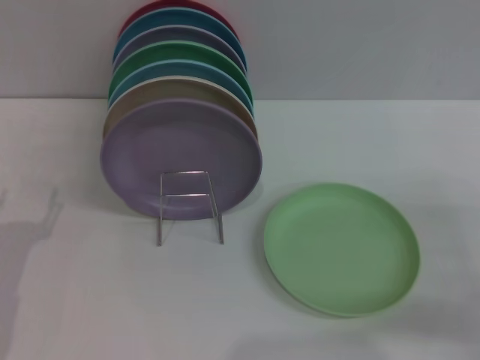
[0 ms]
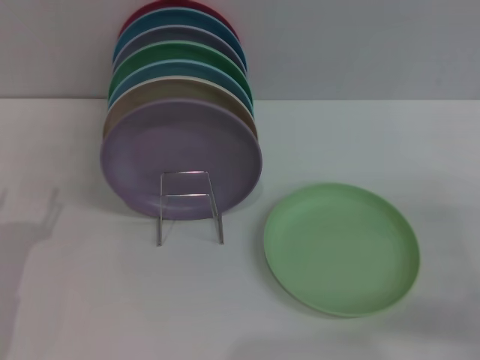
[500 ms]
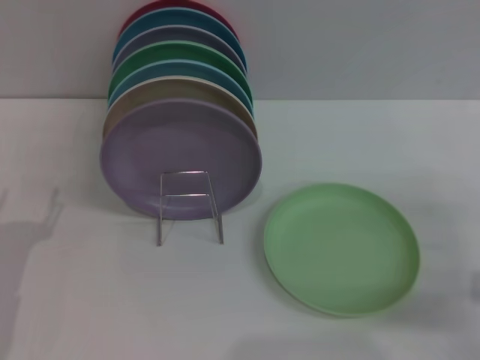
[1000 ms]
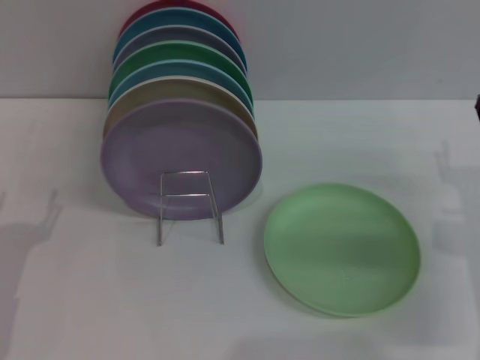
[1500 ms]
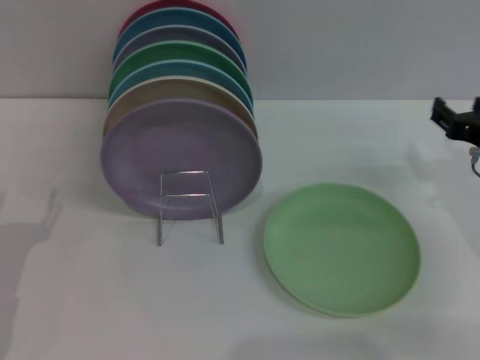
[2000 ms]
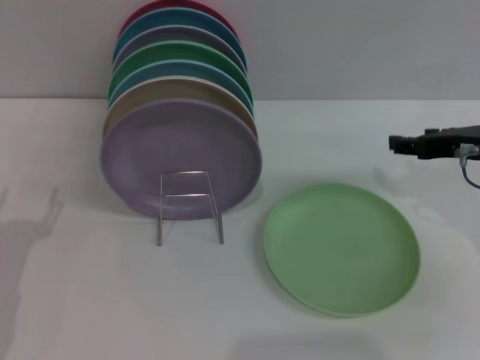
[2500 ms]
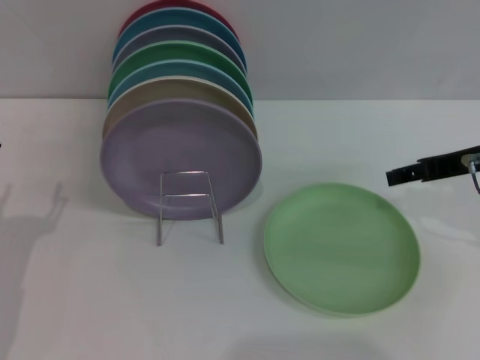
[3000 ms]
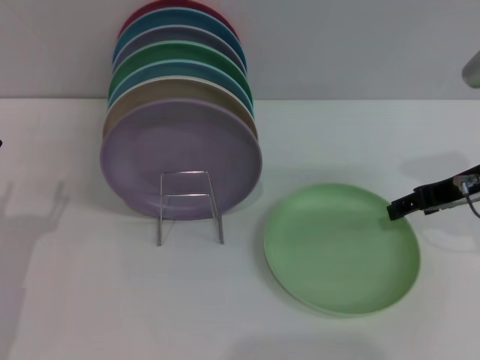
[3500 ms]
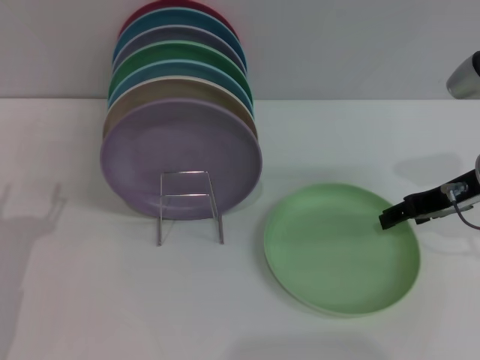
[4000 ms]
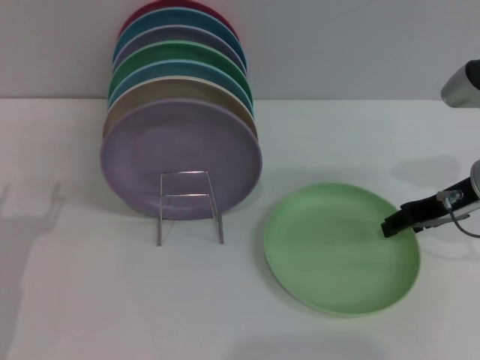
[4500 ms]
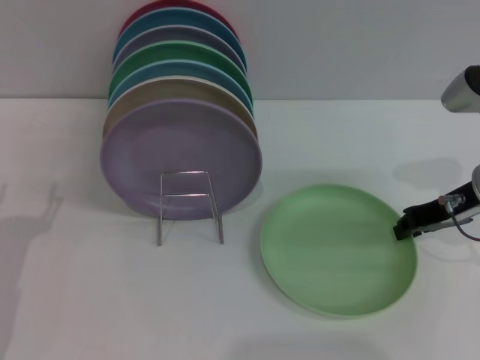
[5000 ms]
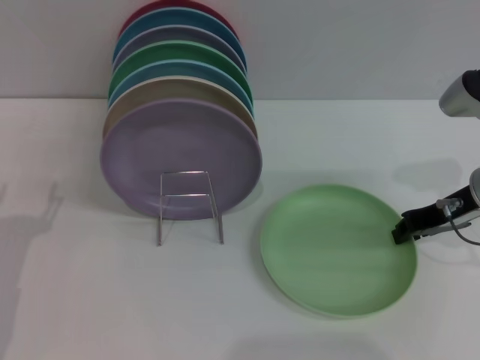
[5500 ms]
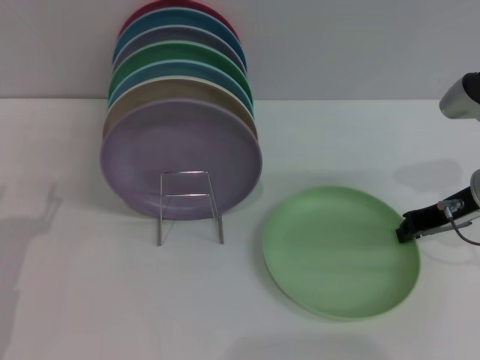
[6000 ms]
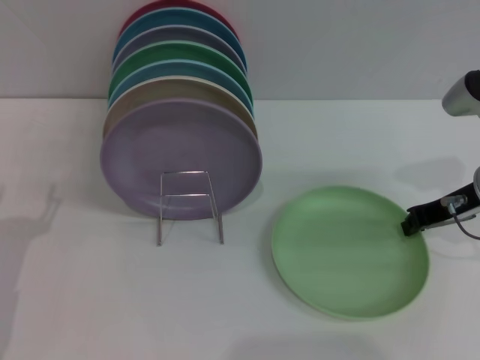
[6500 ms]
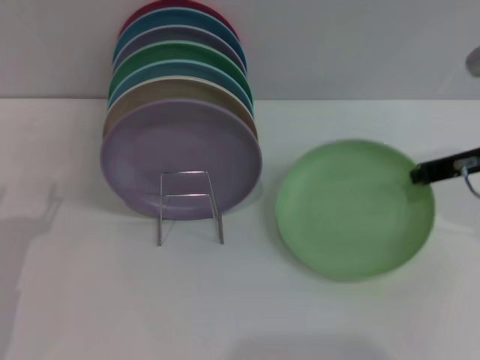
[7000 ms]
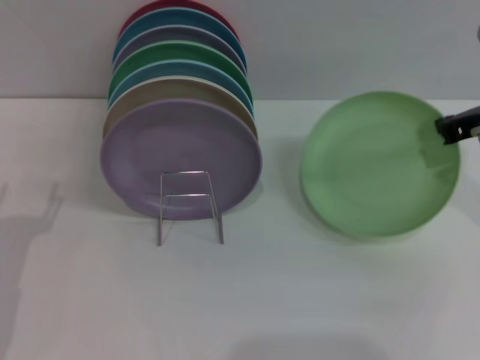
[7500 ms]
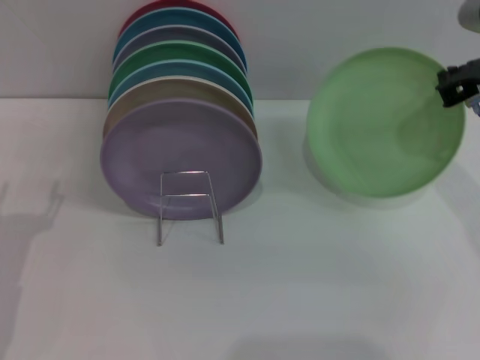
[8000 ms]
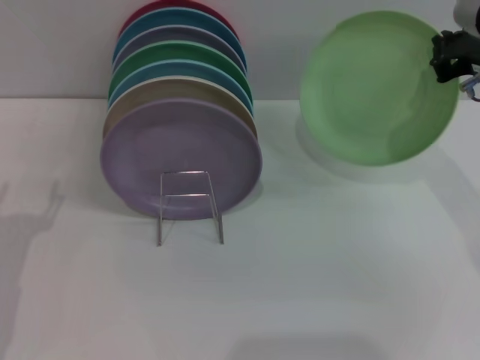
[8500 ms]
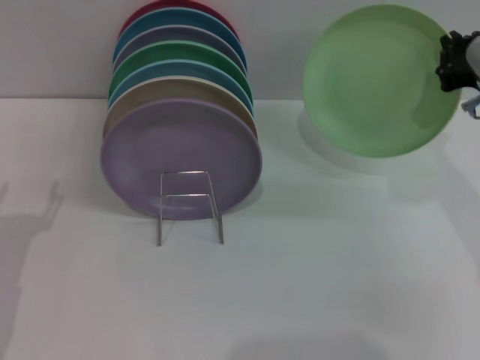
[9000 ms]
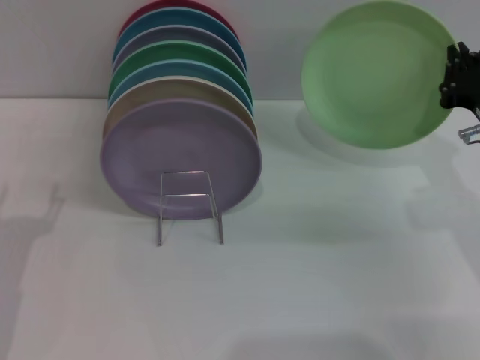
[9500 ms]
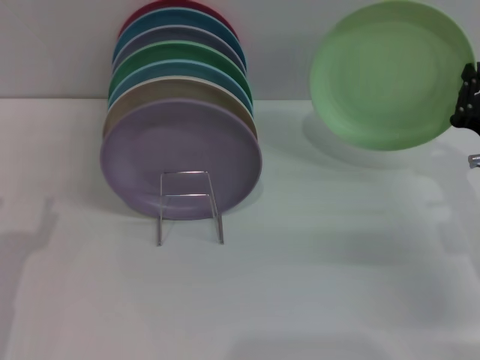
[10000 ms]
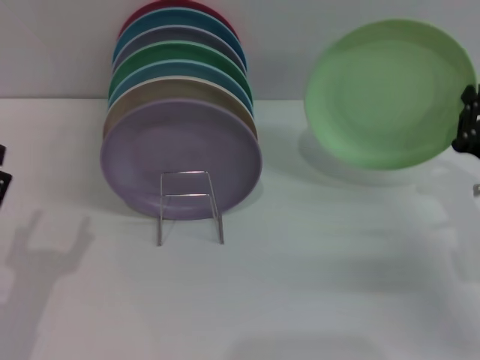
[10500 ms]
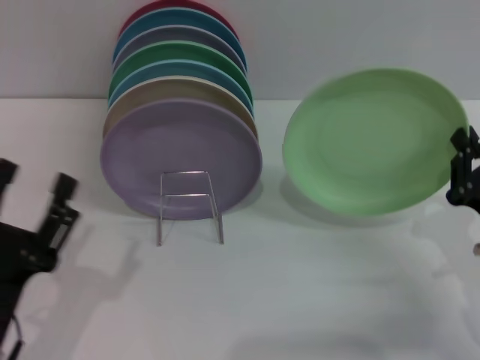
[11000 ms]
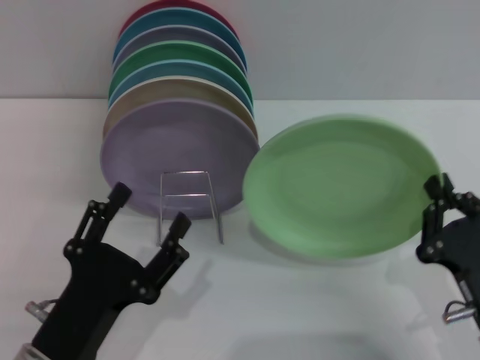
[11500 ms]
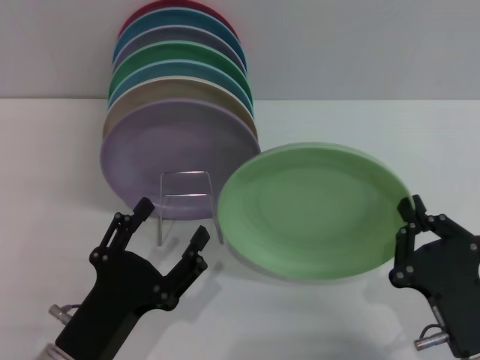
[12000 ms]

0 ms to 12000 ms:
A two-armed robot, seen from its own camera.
Task of the whole recording: Grip the plate with one hand, pass it to the other, then set it on the shelf.
Step, 0 ms to 9500 ms: Pick up the plate with the right gripper.
0 ms to 2000 ms: The right gripper goes approximately 10 cm forward and upward.
4000 ms to 6000 ms: The right gripper closes up.
6000 ms to 8000 ms: The right gripper heads upward, covering approximately 10 cm.
8000 ms to 10000 ms: The right gripper heads downward, covering roughly 15 cm.
10000 ms to 12000 ms: The right gripper heads backward and to the left, covering approximately 20 cm; the left gripper heads to the right, covering about 10 cm.

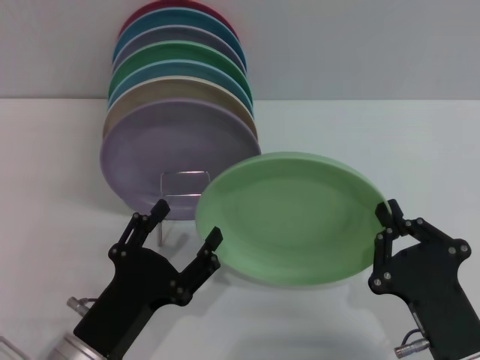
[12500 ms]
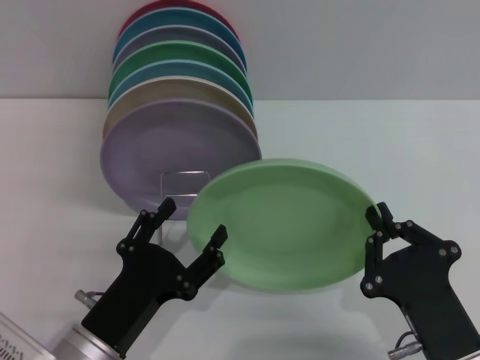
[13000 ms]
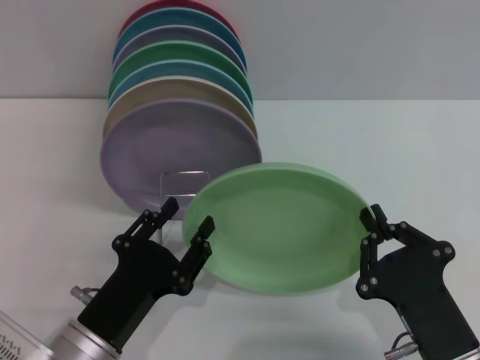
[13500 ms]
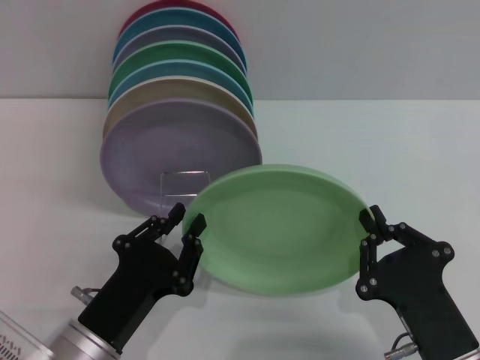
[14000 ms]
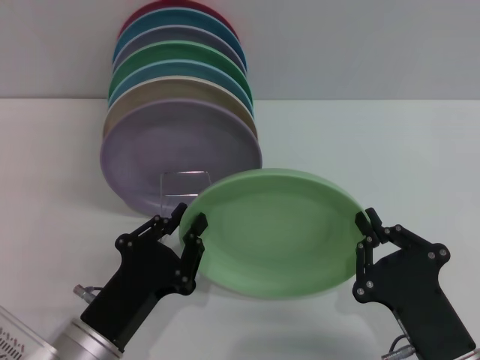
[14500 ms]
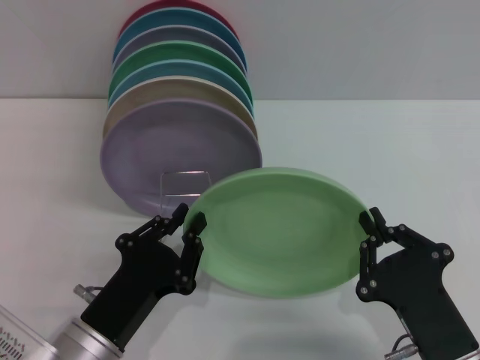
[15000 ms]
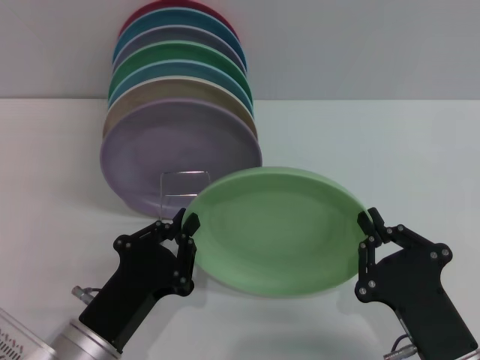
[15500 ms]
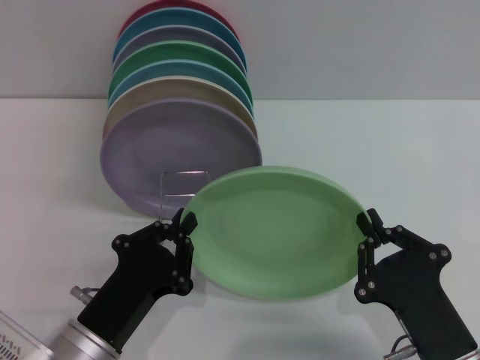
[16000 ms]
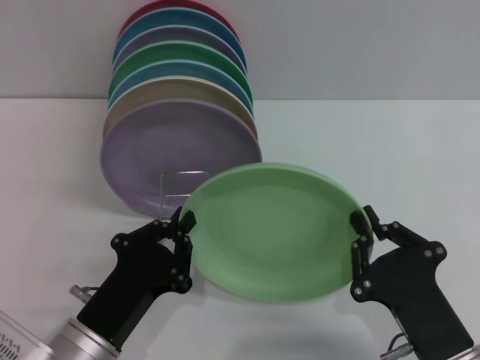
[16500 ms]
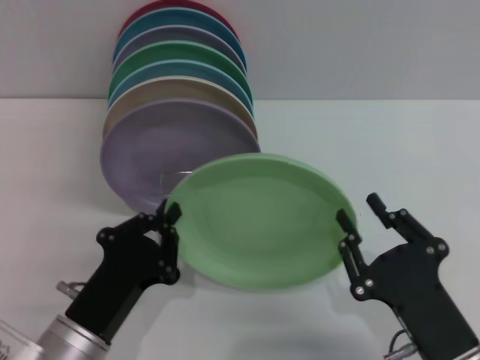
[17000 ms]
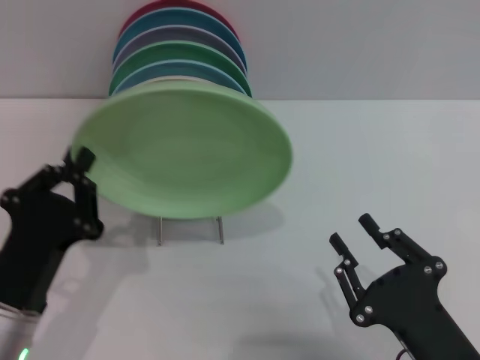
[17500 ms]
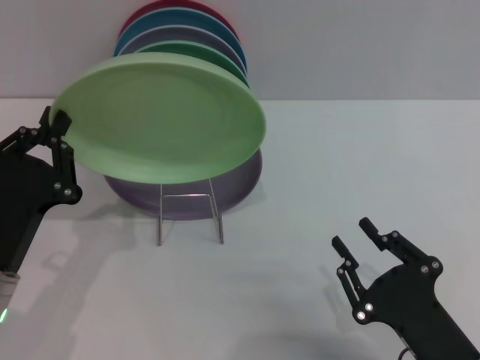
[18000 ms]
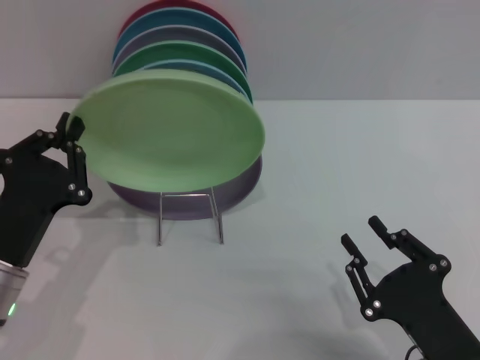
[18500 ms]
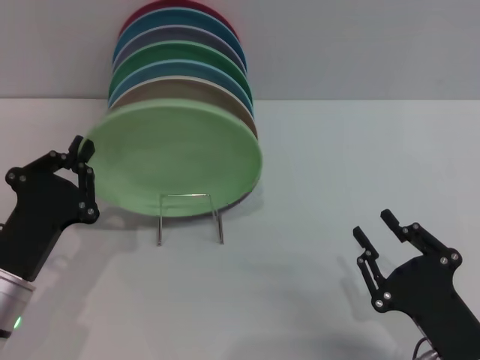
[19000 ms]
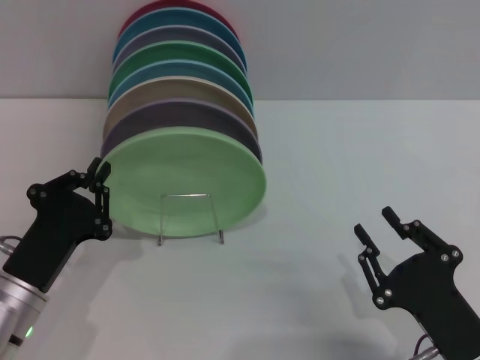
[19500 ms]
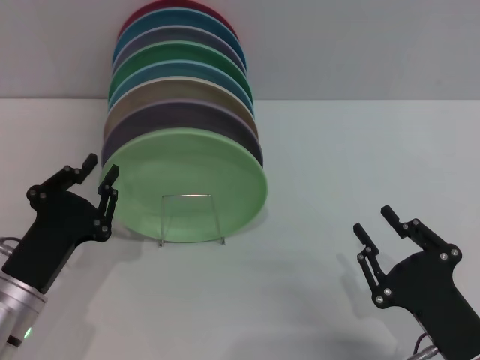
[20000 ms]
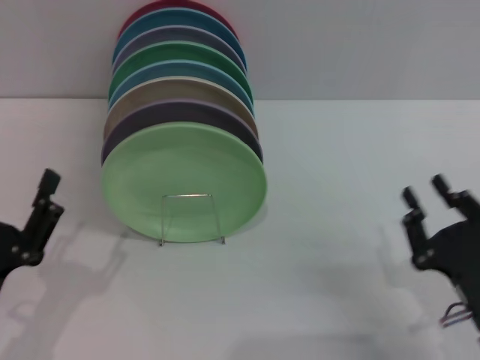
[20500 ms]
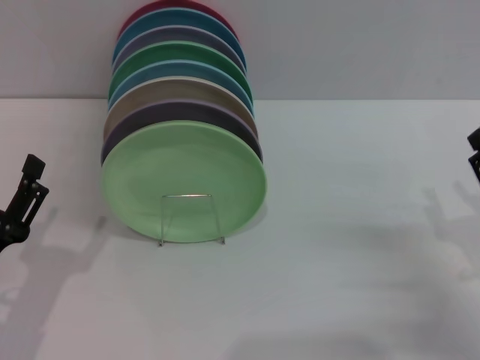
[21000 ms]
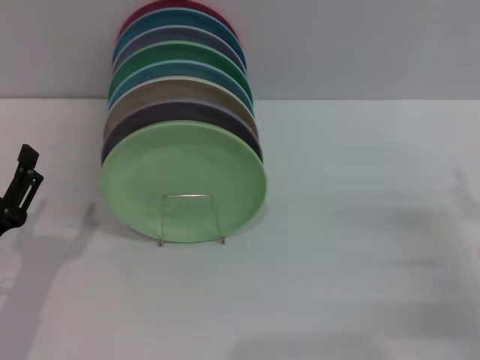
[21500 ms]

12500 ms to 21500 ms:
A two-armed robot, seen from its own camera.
Task of the whole recording: Grip the plate with one hand, pass it to the other, then set it on the shelf.
Step, 12500 ms to 17000 ms: Pass the plate from the right gripper to the left gripper.
Step, 17500 ms to 20000 ms: Place the plate on the shelf with the left gripper.
12500 ms to 14500 ms: The left gripper closes up.
14500 ms to 17000 ms: The right gripper opens.
17000 ms to 19500 ms: The left gripper moves to the left, approximately 5 cm.
19500 ms to 21500 ms: The right gripper goes some 15 cm to the right and forward, and opens up. Meanwhile the left gripper opens.

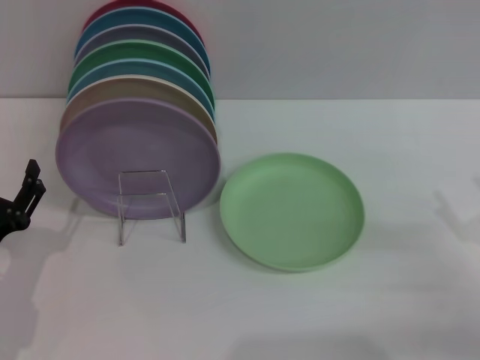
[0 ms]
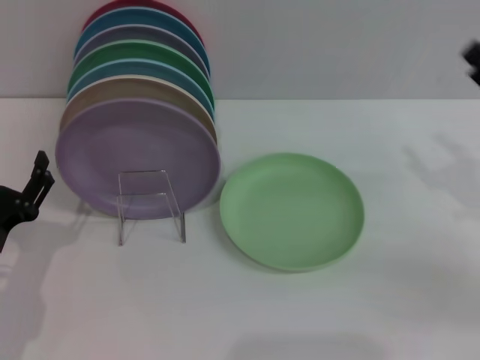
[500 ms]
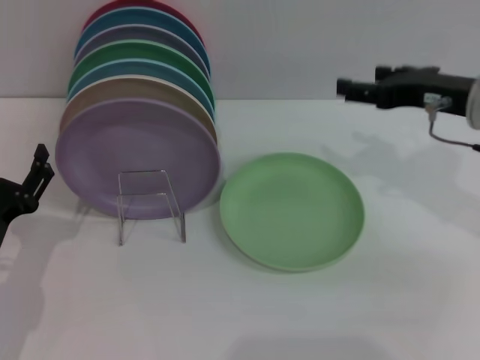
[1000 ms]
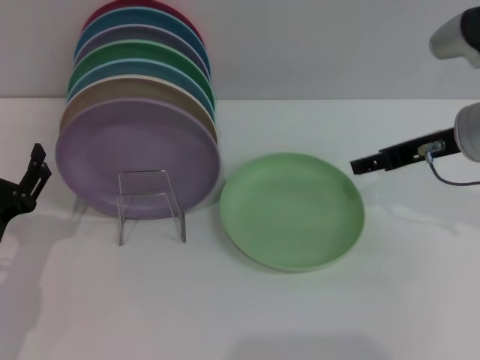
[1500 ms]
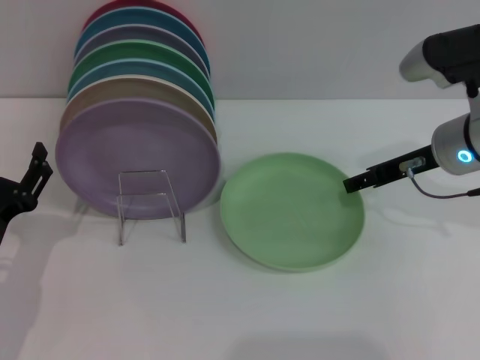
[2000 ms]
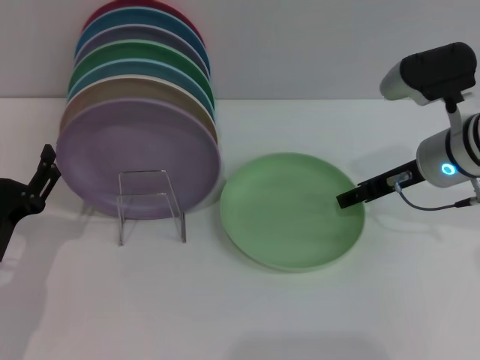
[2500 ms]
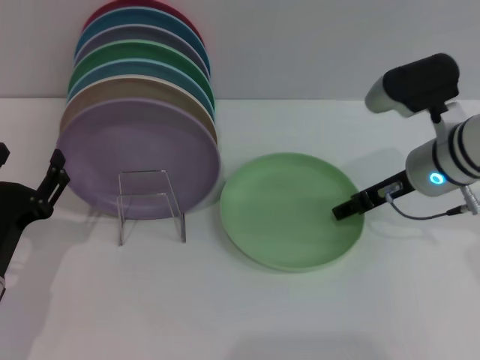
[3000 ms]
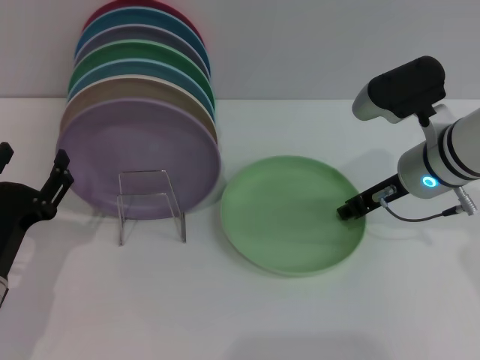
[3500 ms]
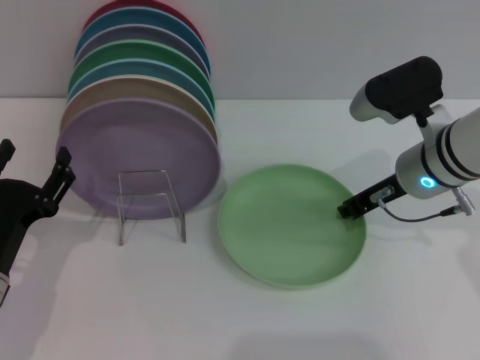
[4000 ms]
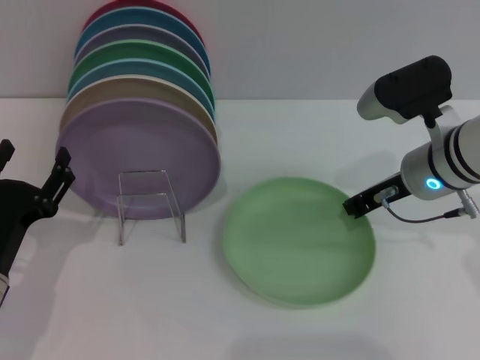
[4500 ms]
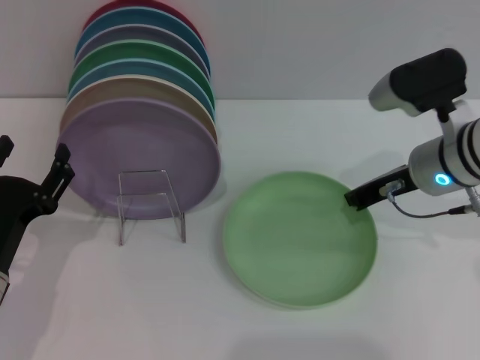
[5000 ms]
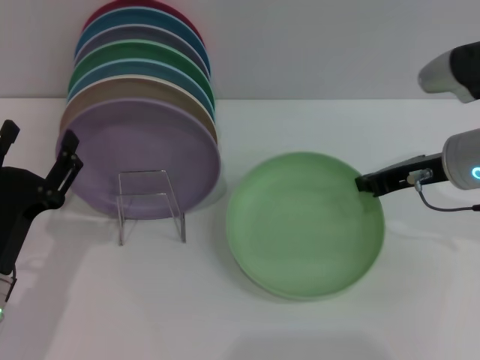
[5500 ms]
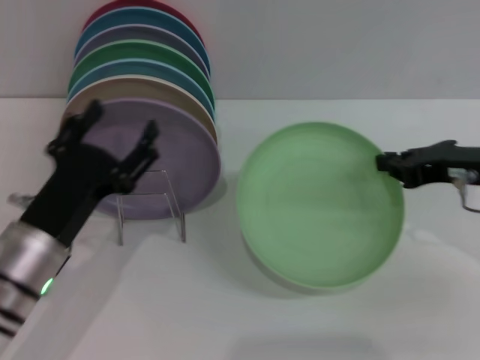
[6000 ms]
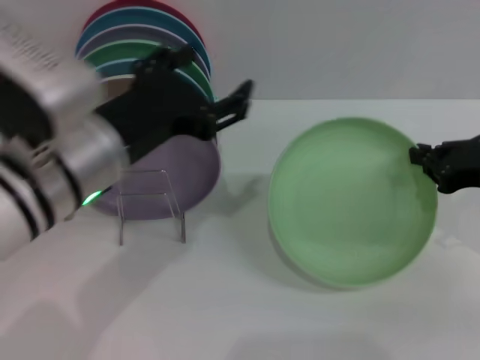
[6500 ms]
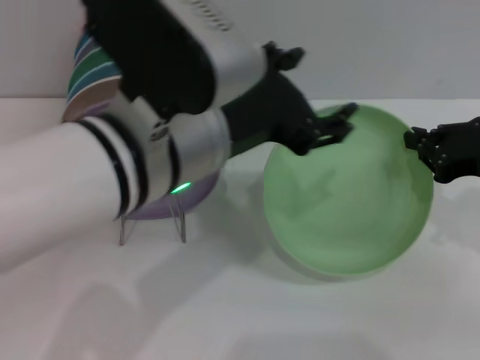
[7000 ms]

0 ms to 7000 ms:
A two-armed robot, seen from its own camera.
Task of the whole recording: Grip the plate with one hand, pass it to the other, then set it on the shelf.
Step, 0 ms to 5500 ms: Pick up the plate with the right gripper.
0 ms to 2000 ms: The right gripper moves forward, to the left and upward, roughly 20 cm.
2000 ms to 3500 ms: The grippers stay close to where they were, moving slightly.
3500 ms to 5000 ms: The right gripper closes up.
5000 ms to 7000 ms: The right gripper travels to the right and backward by roughly 10 cm, while the left gripper goes about 30 cm upward and to the right.
